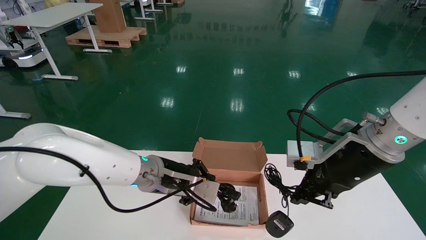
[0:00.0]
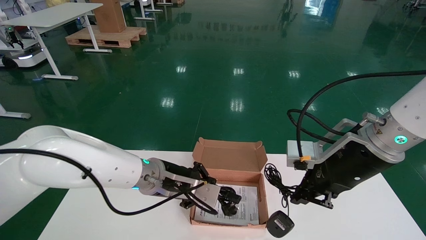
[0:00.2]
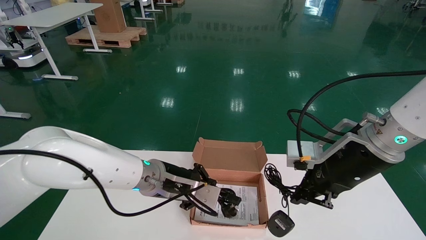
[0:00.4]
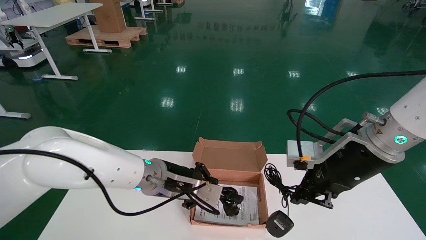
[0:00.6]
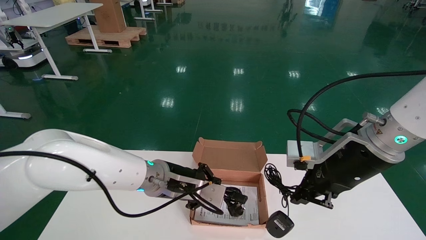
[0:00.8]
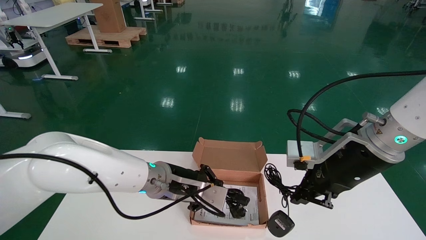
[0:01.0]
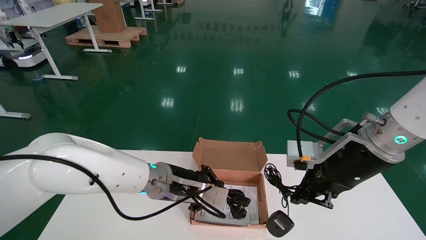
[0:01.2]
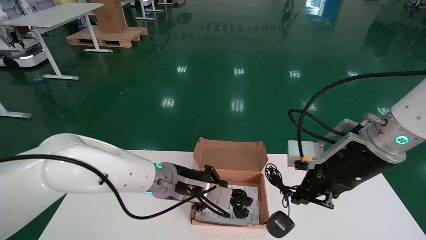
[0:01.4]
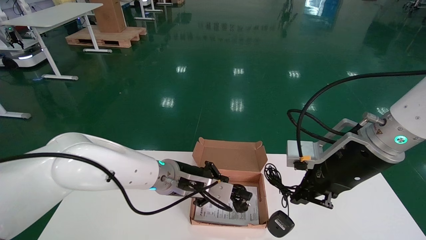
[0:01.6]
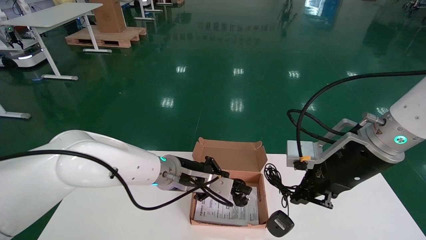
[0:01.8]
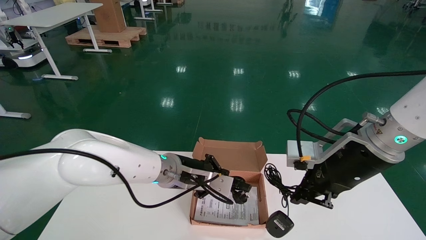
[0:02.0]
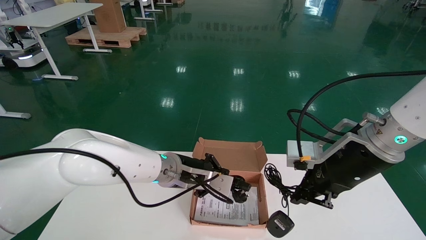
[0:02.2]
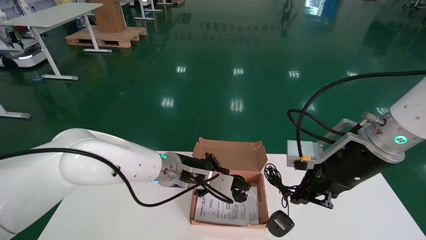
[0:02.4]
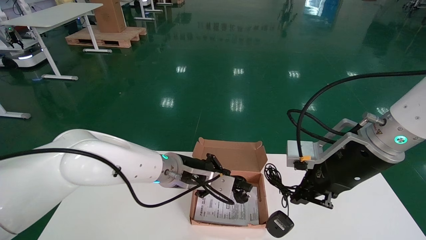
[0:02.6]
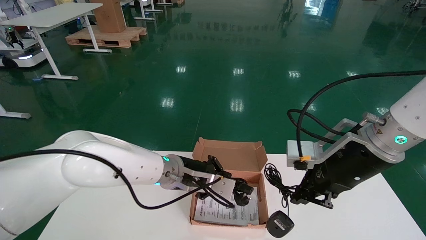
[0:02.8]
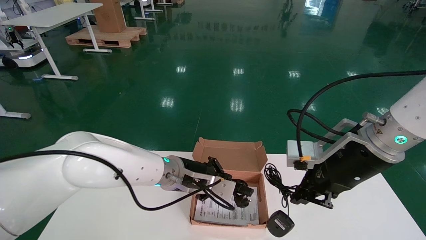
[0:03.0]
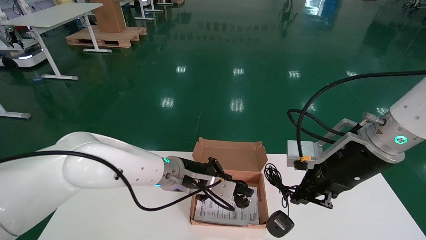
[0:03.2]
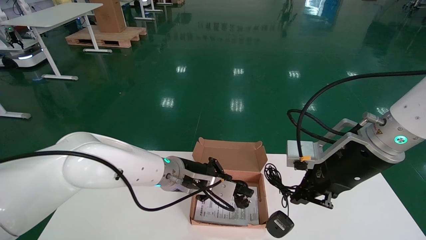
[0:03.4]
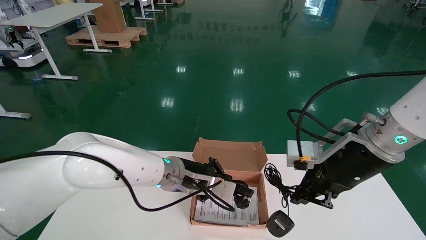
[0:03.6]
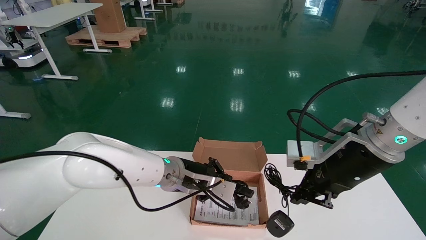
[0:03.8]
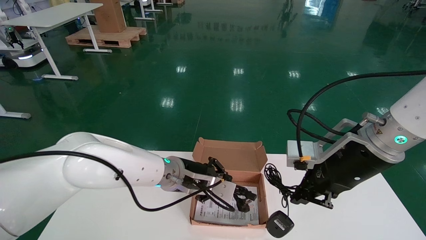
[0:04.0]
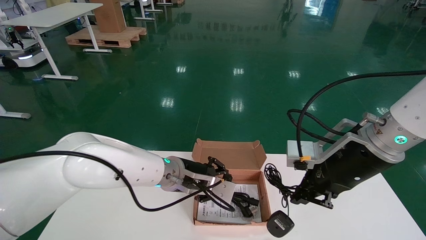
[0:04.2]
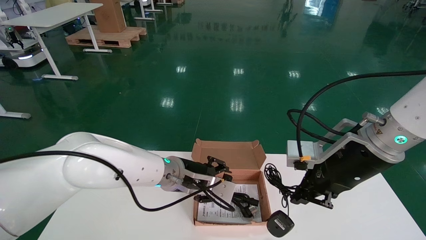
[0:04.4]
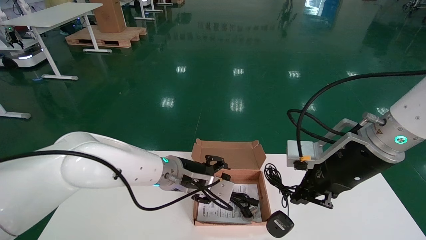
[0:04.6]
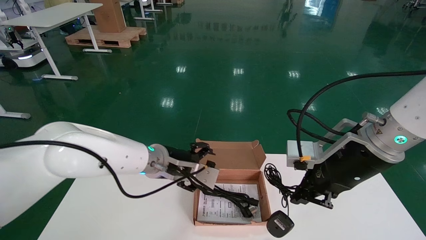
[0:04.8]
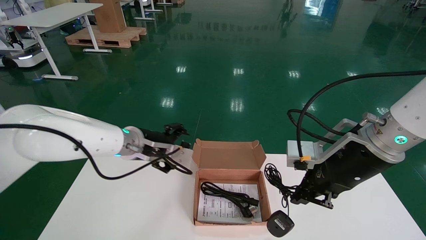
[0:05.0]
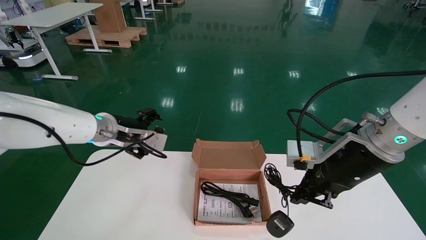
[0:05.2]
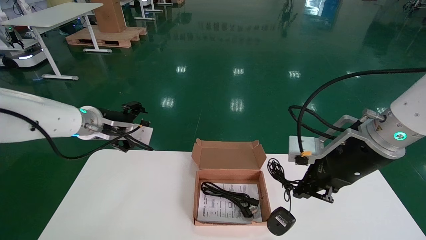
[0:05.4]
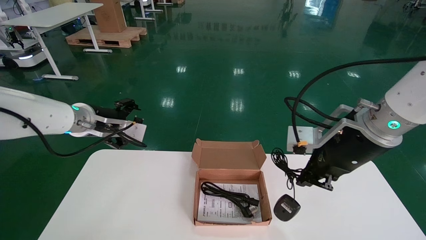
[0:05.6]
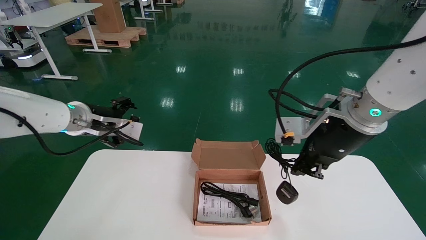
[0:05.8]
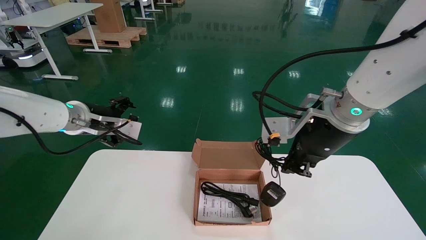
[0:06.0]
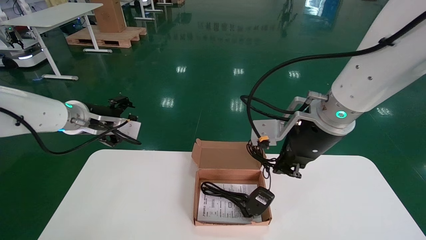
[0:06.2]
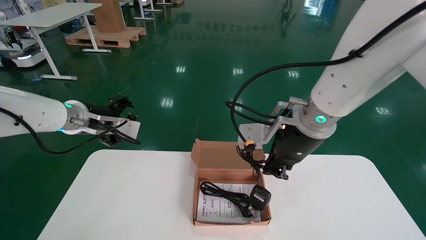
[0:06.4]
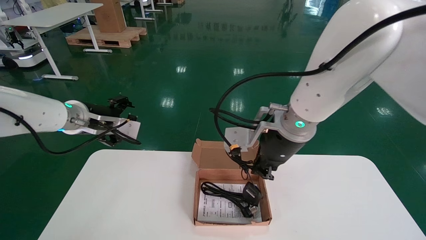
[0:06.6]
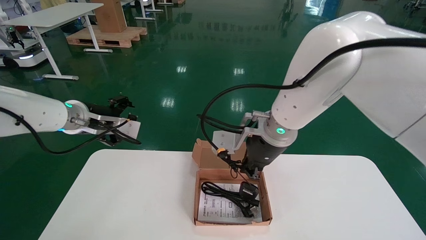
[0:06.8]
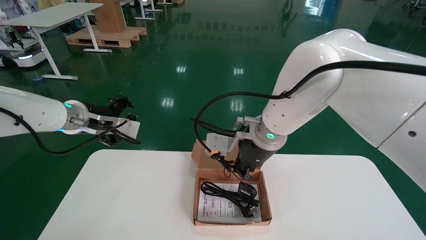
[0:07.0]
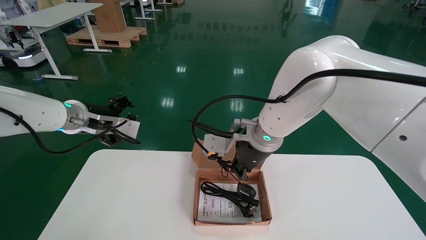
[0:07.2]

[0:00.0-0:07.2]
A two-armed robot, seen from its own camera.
Step, 0:00.0 to 0:07.2: Place the mouse and power cord into the box.
0:00.0 to 0:01.4: The left gripper is displaced downward and to the right by roughly 10 cm.
0:01.4 to 0:02.8: The grippers move only a little.
0:02.8 to 0:04.4: Both grippers stay about where they are.
0:04.4 to 0:05.8: The left gripper is displaced to the left and upward by approximately 20 cm, and opens up.
0:05.8 to 0:07.2: The right gripper moves to the left, some 15 cm. Meanwhile the left gripper travels to the left by about 5 cm.
